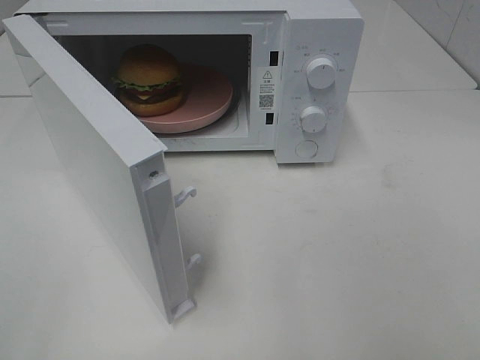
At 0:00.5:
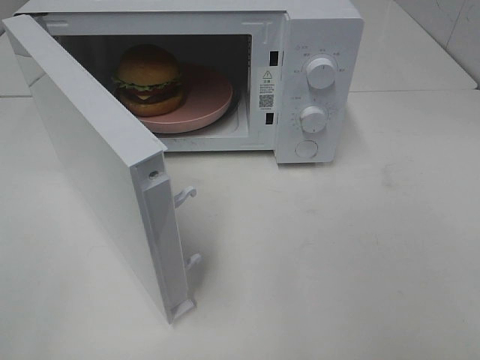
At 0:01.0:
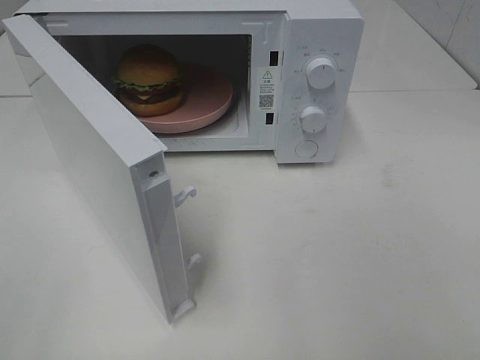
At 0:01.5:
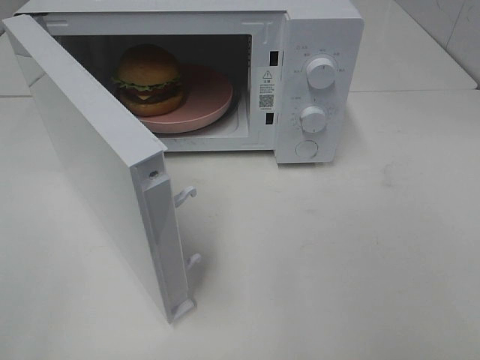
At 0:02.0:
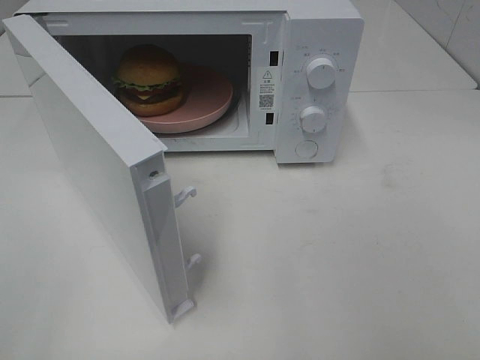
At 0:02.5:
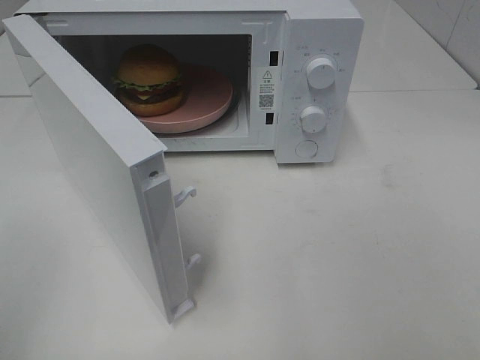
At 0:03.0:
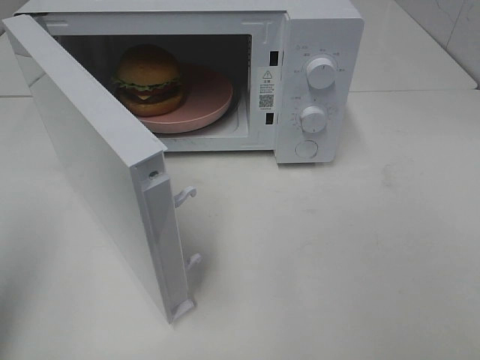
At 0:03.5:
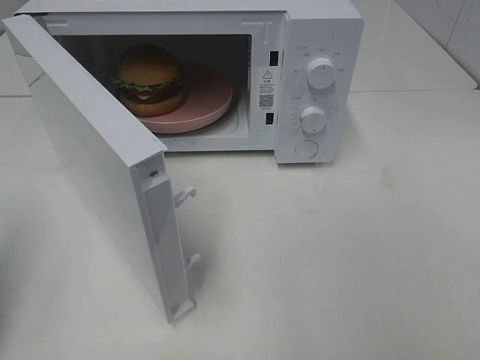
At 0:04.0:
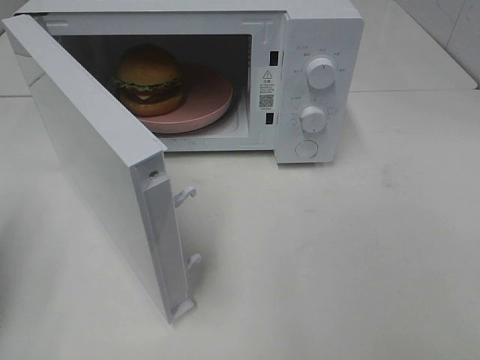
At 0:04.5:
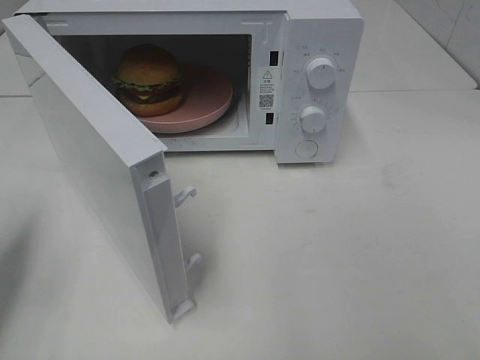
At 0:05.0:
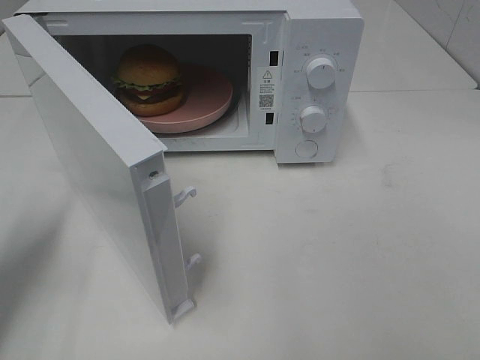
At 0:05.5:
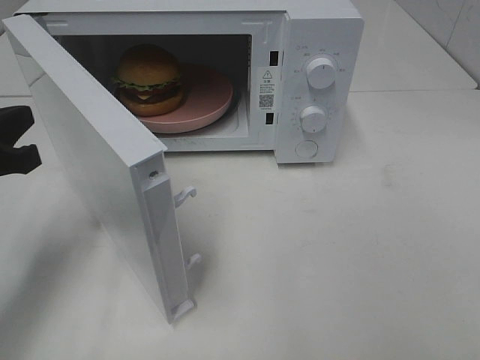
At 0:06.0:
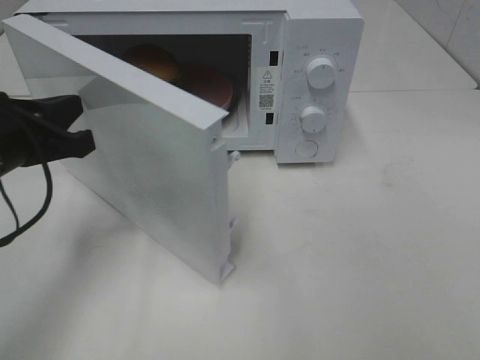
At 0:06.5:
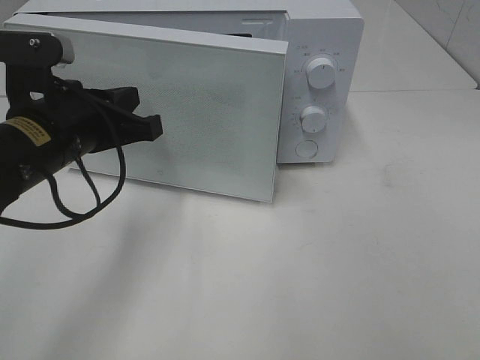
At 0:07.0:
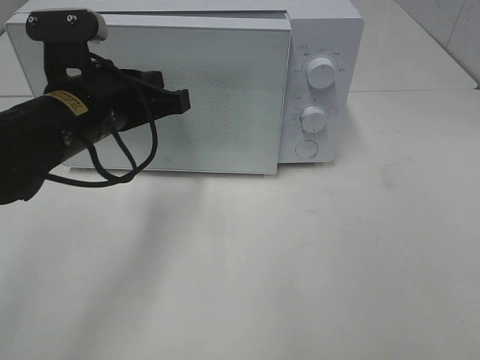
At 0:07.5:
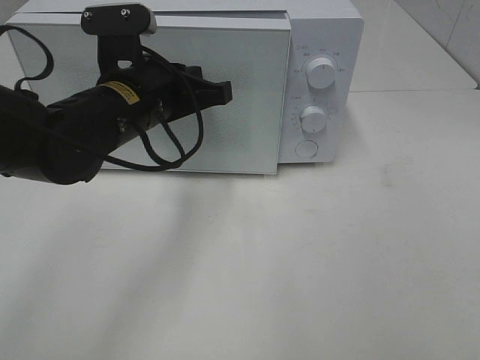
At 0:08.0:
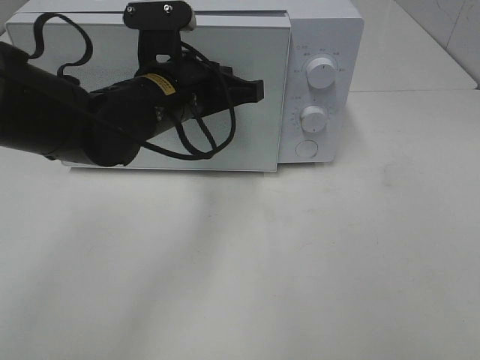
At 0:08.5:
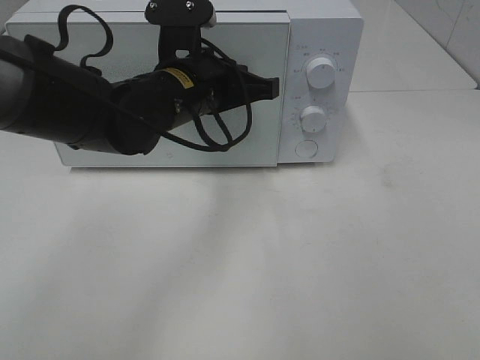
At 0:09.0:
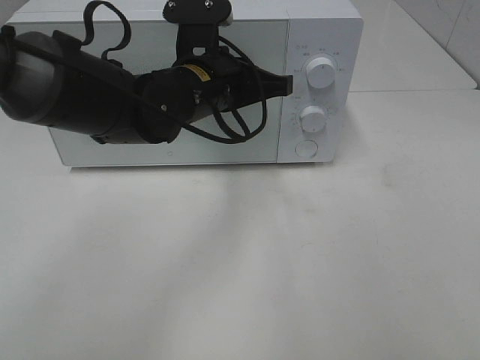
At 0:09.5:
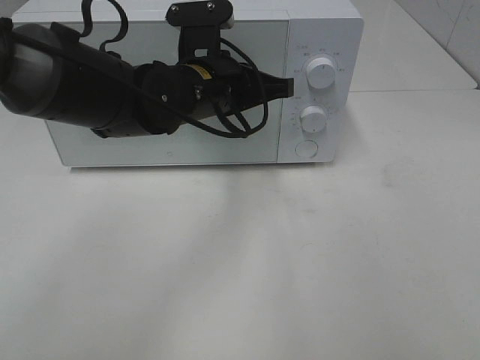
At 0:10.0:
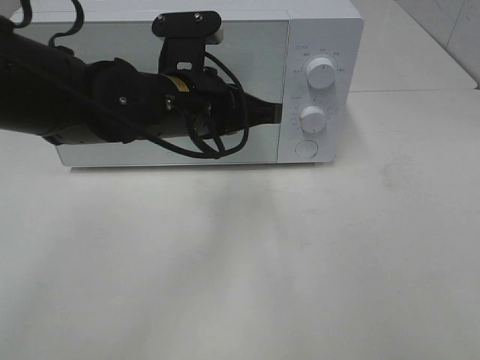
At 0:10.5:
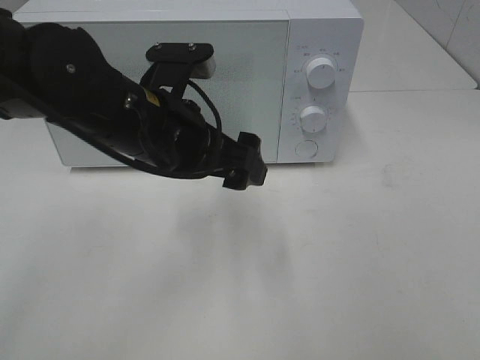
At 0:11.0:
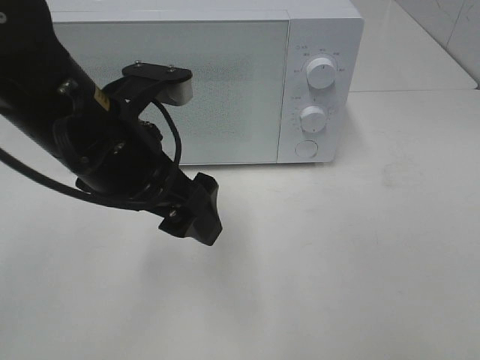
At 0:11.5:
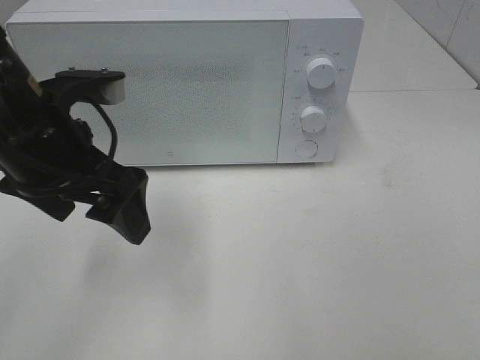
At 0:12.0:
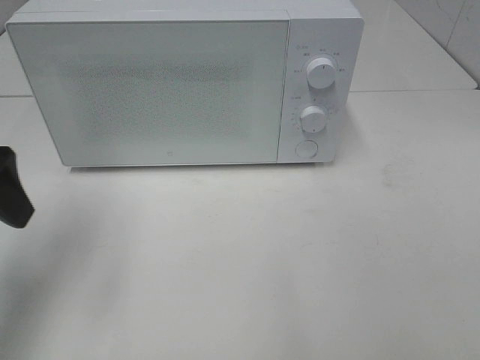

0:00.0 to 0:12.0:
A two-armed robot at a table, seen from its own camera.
Task of the whole recording: Heat the burger.
Step, 0:00.0 to 0:10.0: Left hand: close the microwave door.
0:00.0 to 0:02.0: Neither gripper changes place.
0:02.0 to 0:04.0: The left gripper moves forward and downward, approximately 15 cm, and closes.
0:04.0 to 0:06.0: The left gripper shifts approximately 15 cm to the right and forward.
0:06.0 to 0:08.0: The left gripper shifts roughly 20 cm to the right and forward.
0:08.0 to 0:10.0: The grippers stay close to where they were, moving slightly.
0:10.0 to 0:12.0: The left gripper shifts roughly 20 cm to the left, and opens.

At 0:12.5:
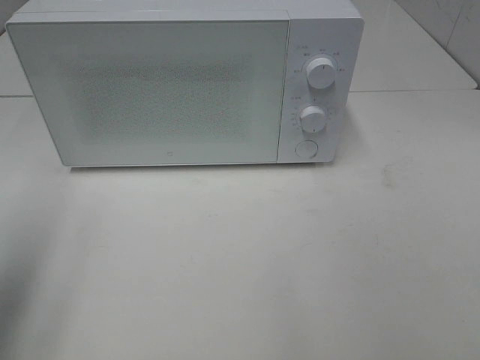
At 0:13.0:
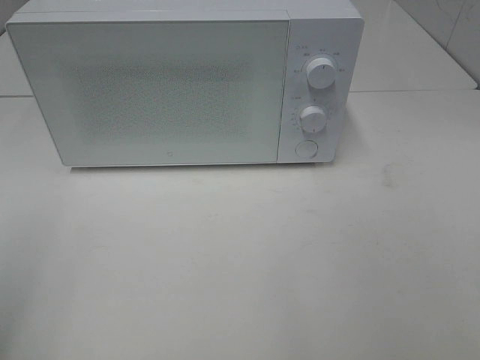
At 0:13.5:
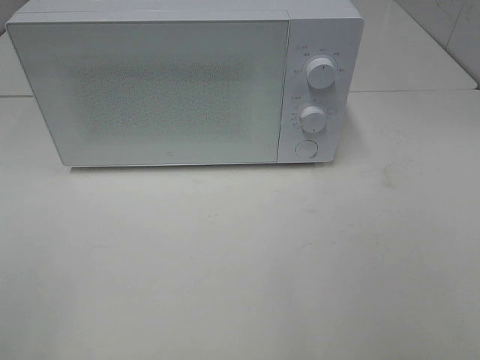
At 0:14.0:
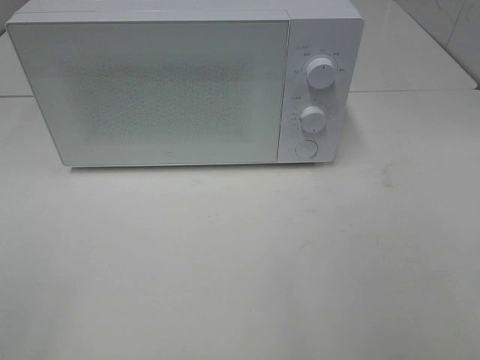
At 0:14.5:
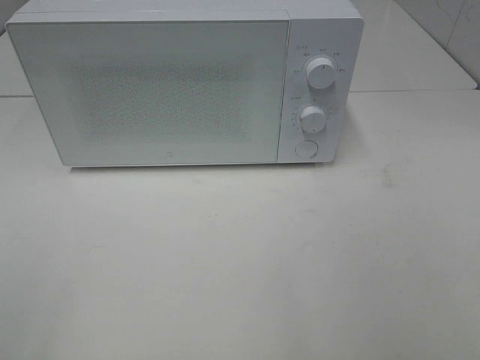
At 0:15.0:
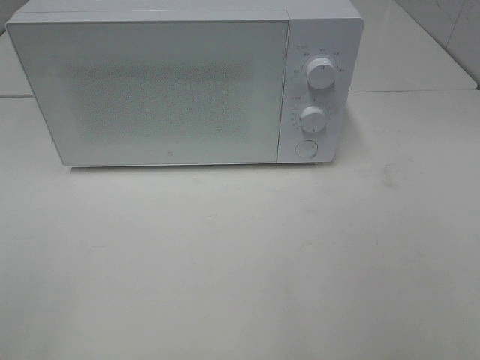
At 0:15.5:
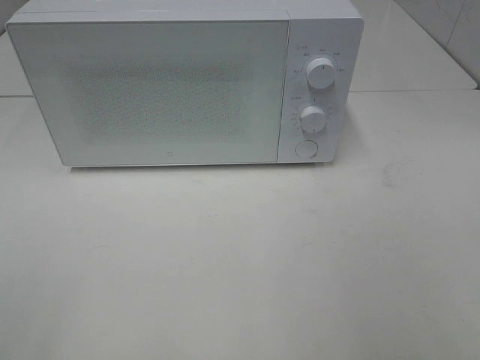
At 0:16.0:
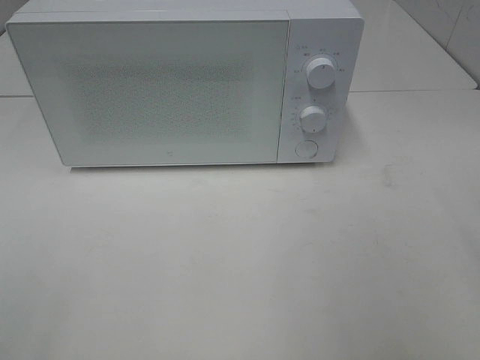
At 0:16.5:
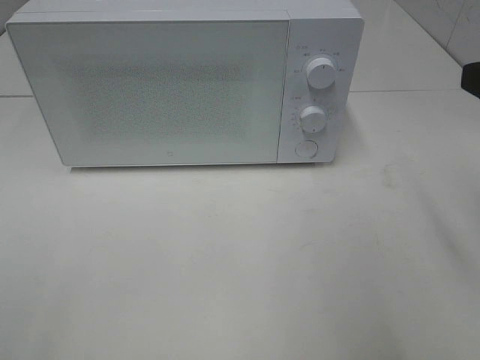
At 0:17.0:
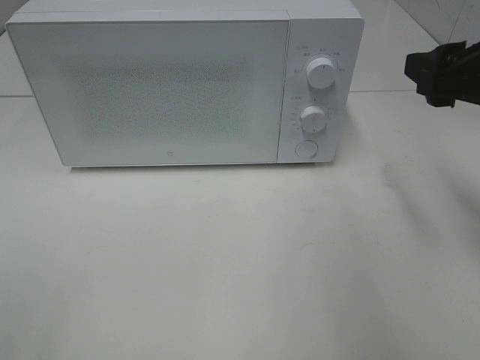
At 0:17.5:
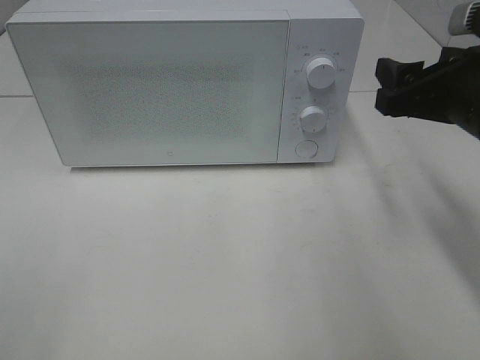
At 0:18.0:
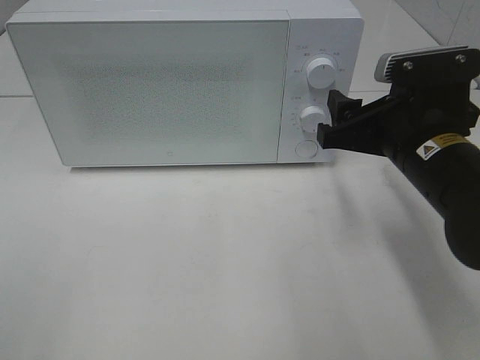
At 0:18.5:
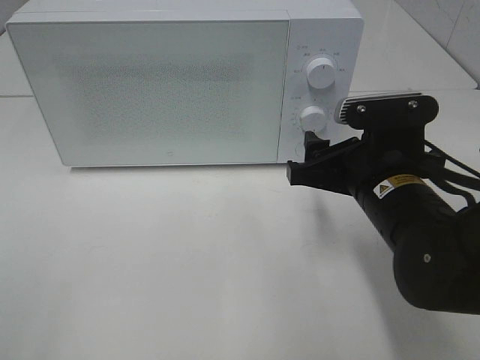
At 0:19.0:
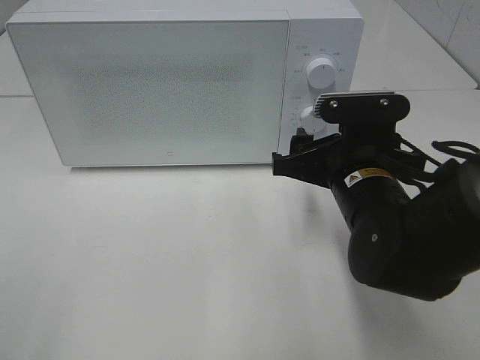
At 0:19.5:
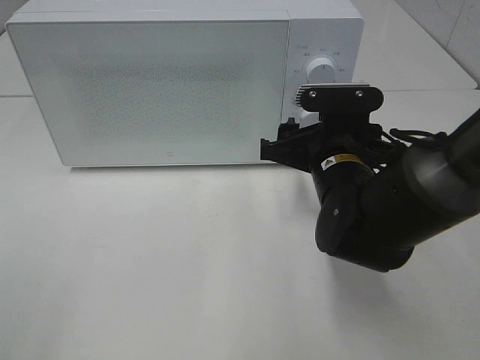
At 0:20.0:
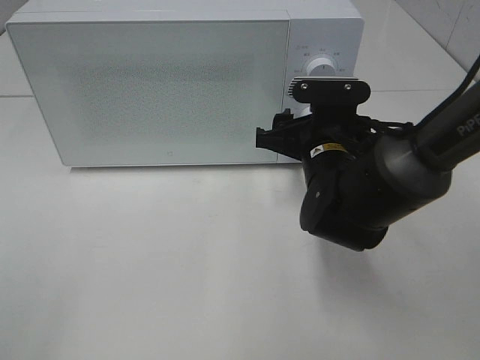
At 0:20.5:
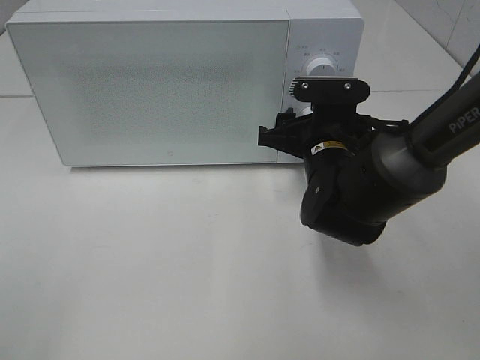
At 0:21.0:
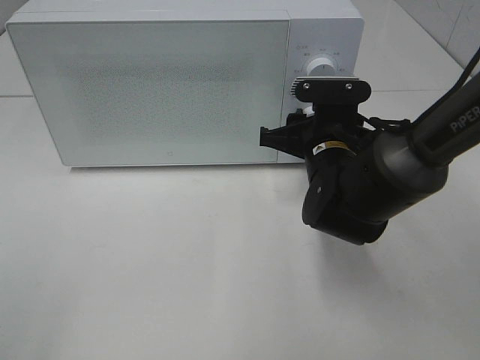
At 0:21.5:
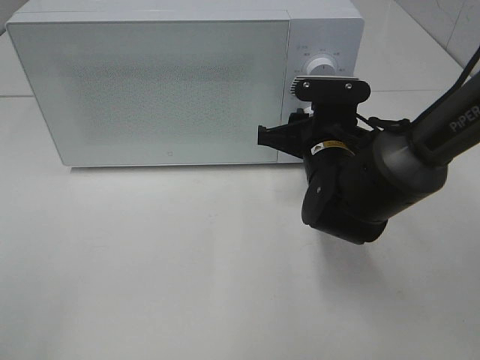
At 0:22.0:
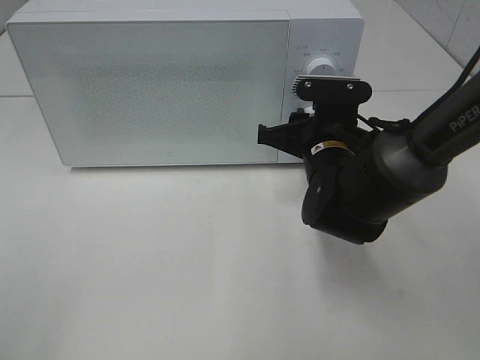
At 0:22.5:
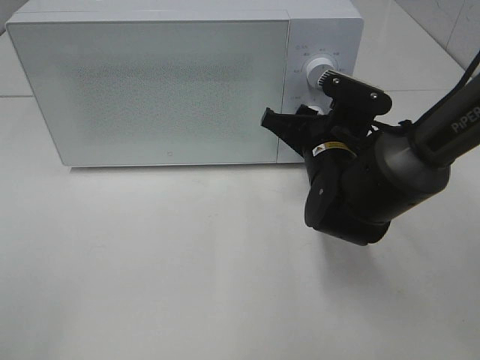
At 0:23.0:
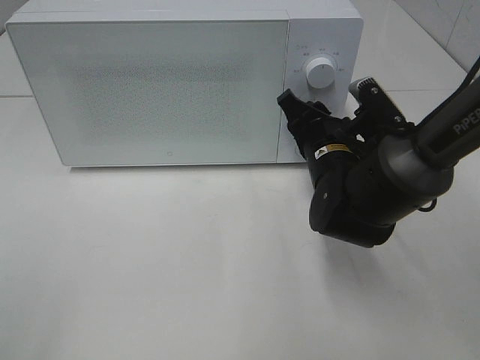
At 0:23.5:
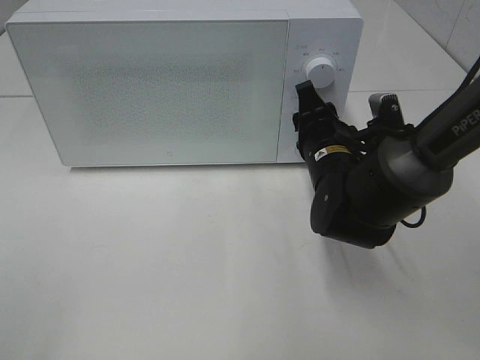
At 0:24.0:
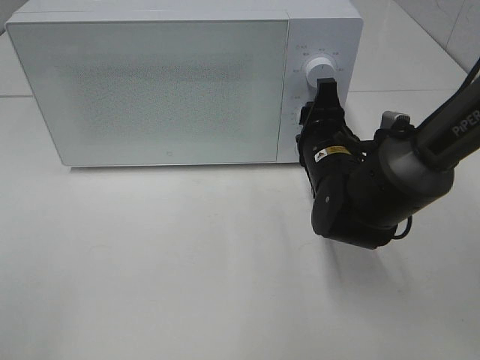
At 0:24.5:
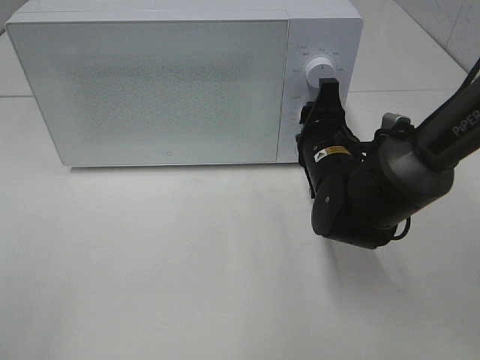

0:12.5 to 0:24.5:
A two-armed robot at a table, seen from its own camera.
Task of the whole recording: Heat the burger.
0:12.5 to 0:14.5: The left gripper moves backward, roughly 15 cm.
0:16.5 to 0:18.5: The right gripper heads downward and to the left, covering approximately 20 cm.
0:18.5 to 0:20.5: The right gripper goes approximately 10 cm forward.
0:20.5 to 0:22.5: The right gripper closes up.

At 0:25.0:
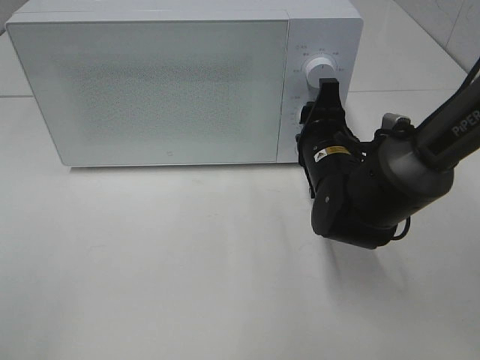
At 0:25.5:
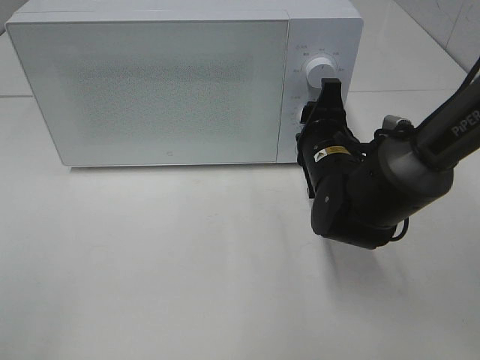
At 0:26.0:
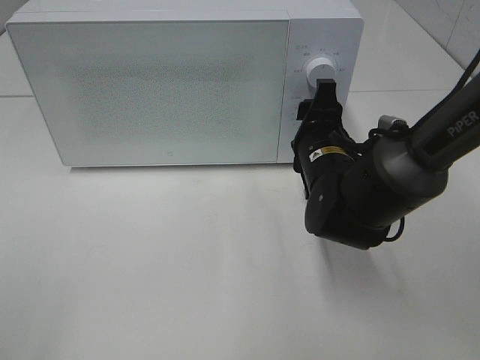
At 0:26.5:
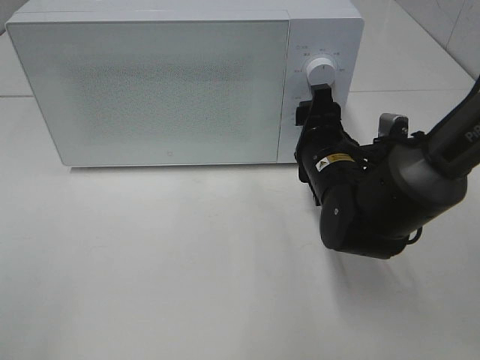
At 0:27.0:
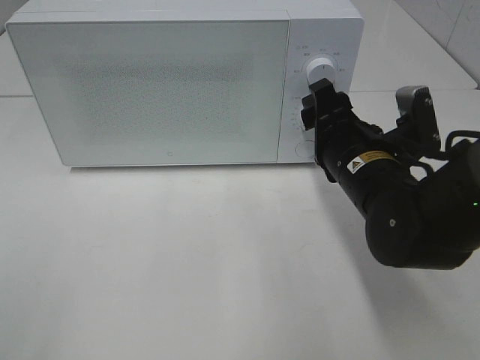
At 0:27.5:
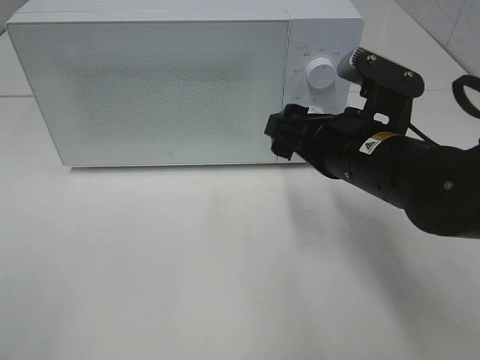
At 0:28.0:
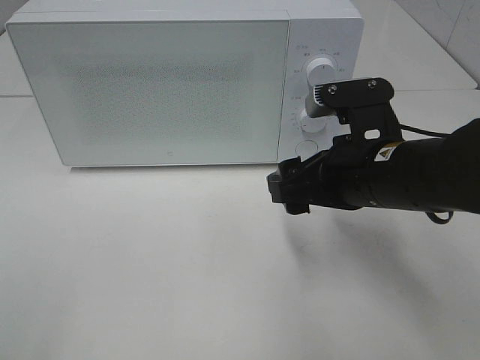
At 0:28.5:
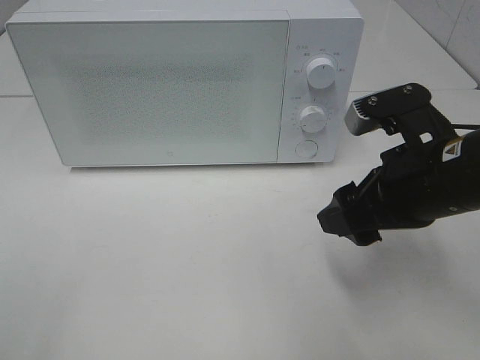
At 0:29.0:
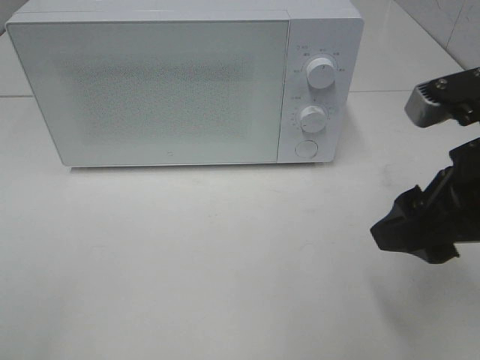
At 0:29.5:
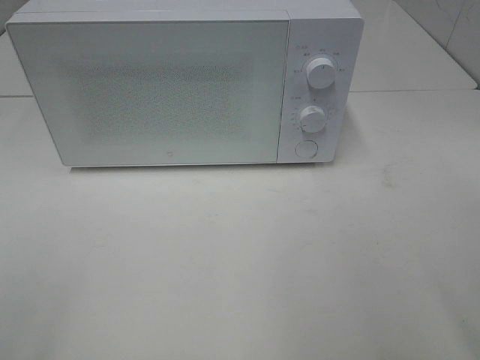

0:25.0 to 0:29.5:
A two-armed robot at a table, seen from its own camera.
Task of the whole recording: Heat the burger.
0:25.0 to 0:27.0: The right gripper shifts by roughly 5 cm.
0:27.0 to 0:29.5: The right gripper travels backward, upward and to the right by approximately 25 cm.
